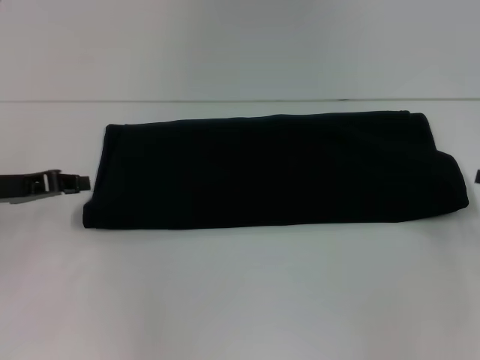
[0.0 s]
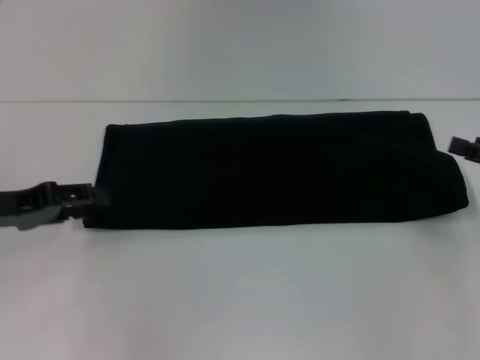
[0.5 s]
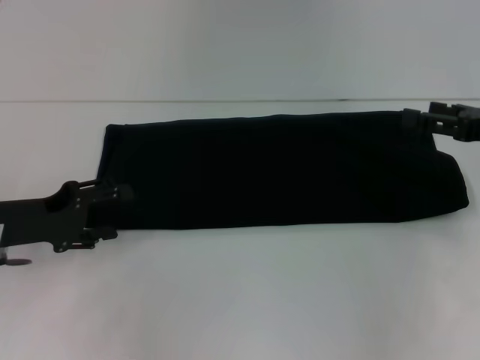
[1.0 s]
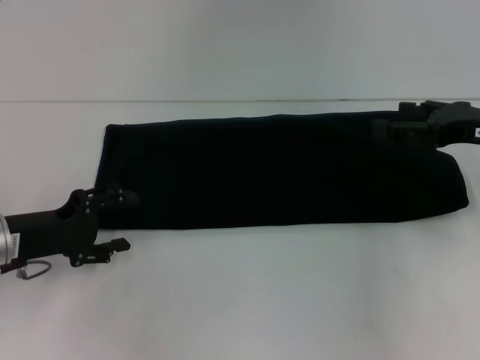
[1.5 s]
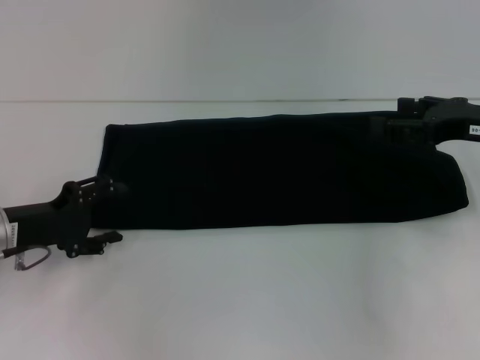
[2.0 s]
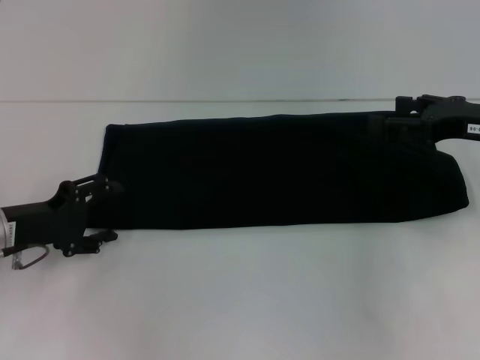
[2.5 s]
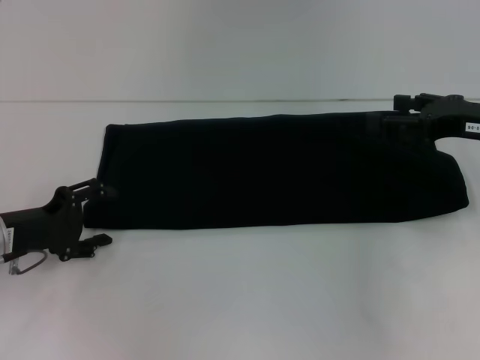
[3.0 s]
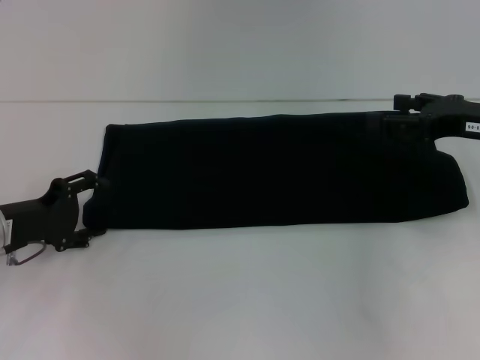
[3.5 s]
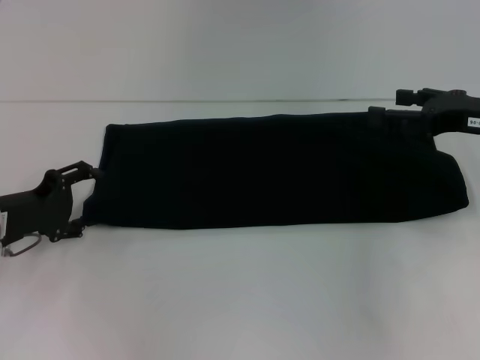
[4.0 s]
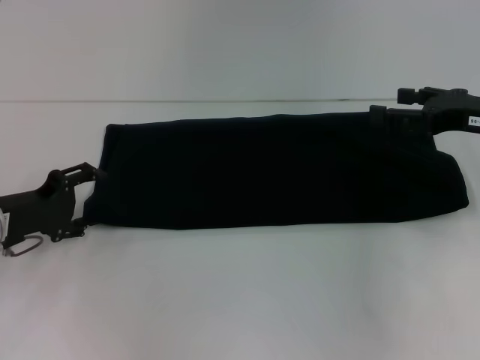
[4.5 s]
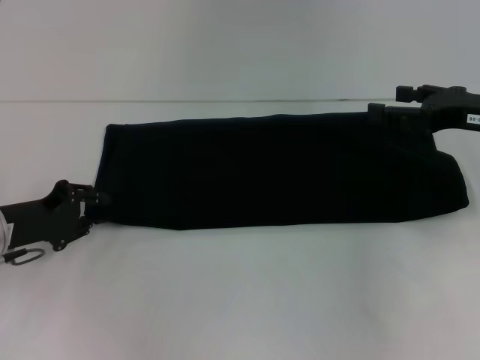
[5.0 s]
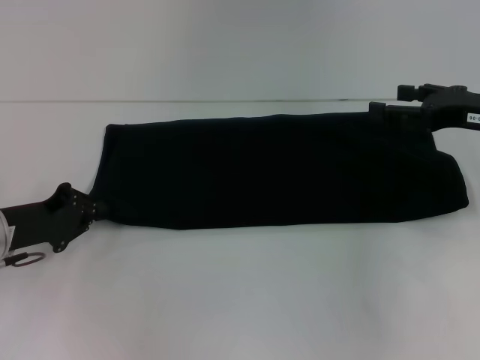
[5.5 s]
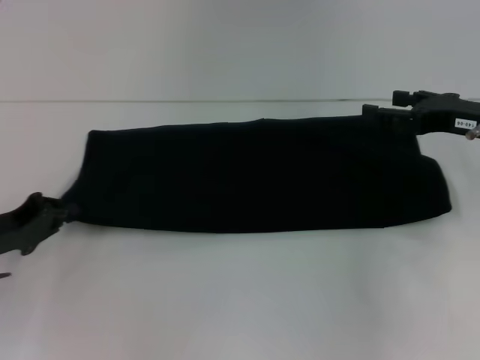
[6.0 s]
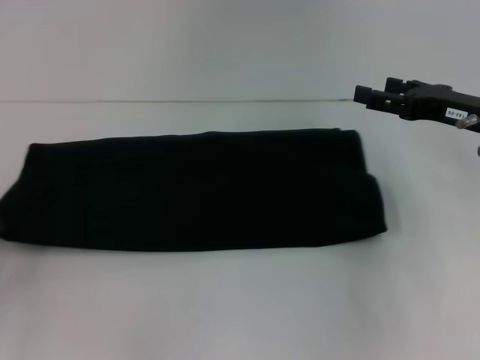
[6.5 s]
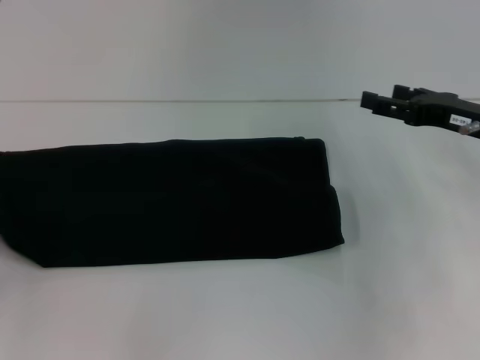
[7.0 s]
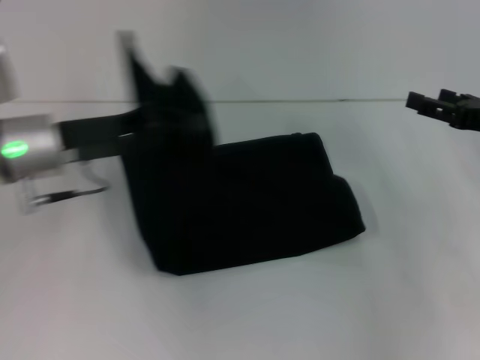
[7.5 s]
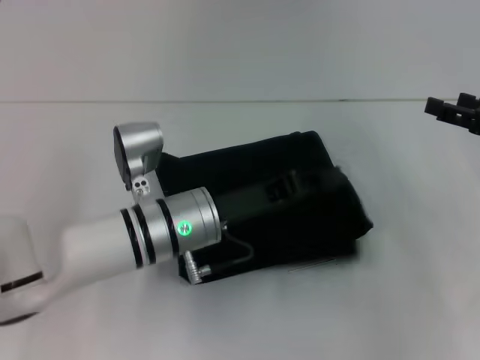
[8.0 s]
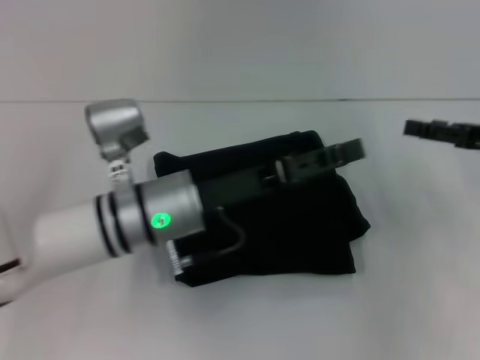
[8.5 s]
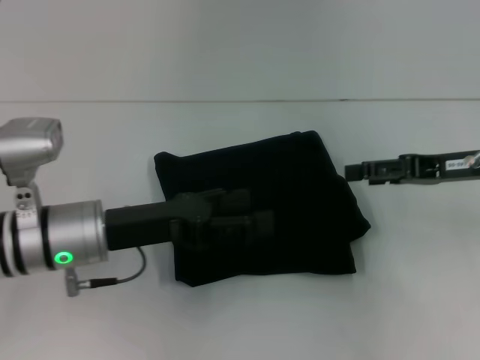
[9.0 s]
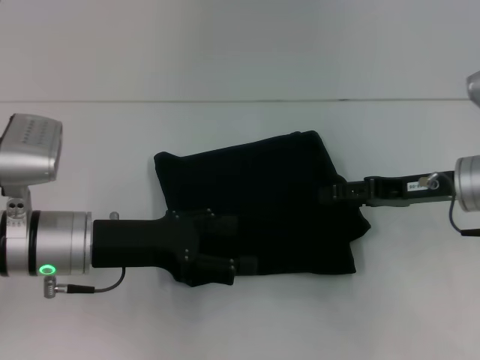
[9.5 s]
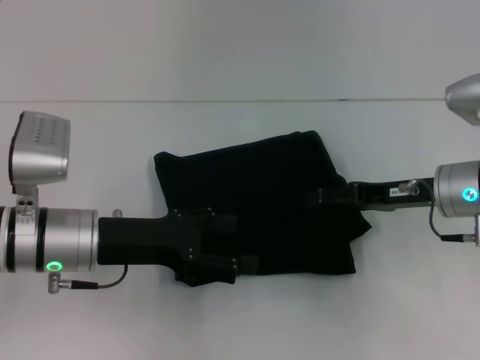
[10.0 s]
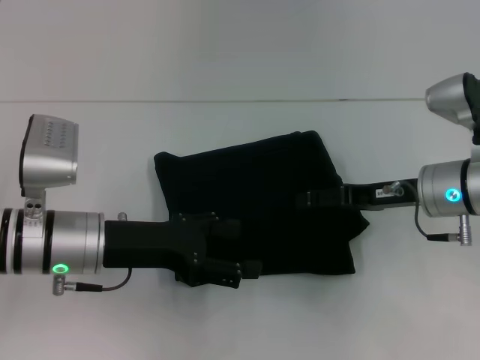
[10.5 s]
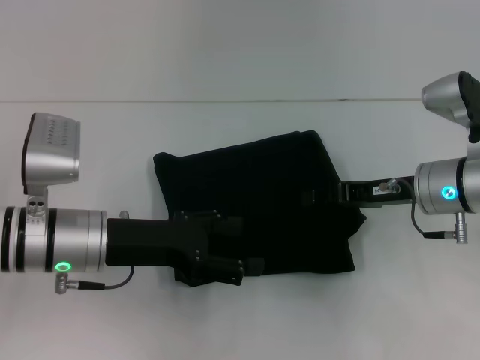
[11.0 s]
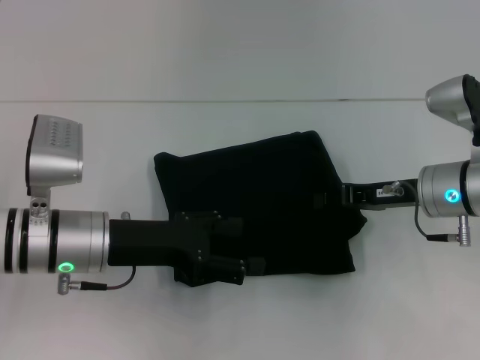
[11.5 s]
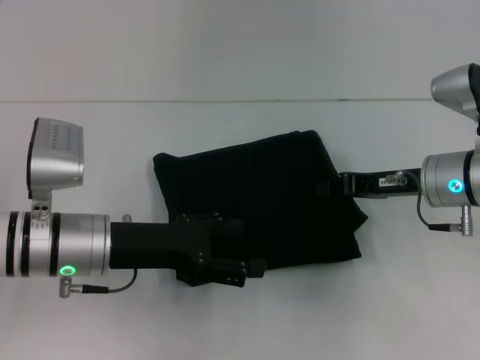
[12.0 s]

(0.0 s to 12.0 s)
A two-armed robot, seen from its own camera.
Step, 0.0 s - 8.0 s: Fold the clothes with your left hand.
0.0 s - 2.0 s: The left gripper shifts by some 5 cm, and opens its fingers; the right gripper travels to the left and forward by approximately 10 cm, and opens.
2.0 s - 4.0 s: There are only small adjustments of the grippers.
4.0 s - 6.0 s: The left gripper closes up.
6.0 s - 8.0 s: The left gripper is displaced to the right by roughly 25 cm. The right gripper travels to the right by about 5 cm.
8.0 s - 10.0 s: The grippers both shift to the left by about 10 cm. The left gripper opens up.
10.0 s - 12.0 s: The right gripper closes up.

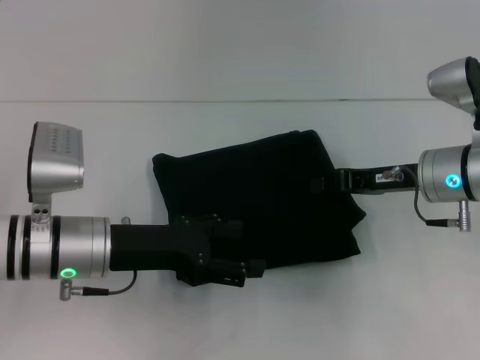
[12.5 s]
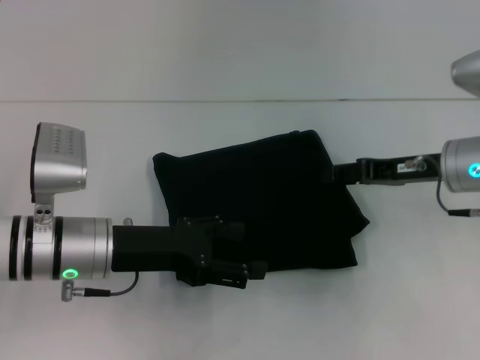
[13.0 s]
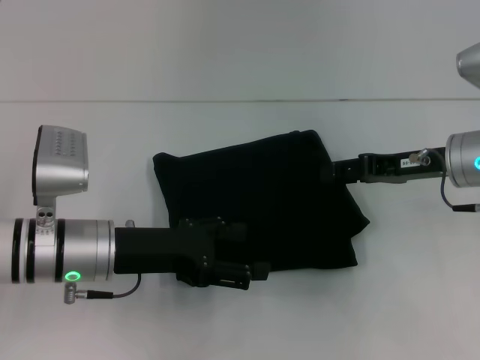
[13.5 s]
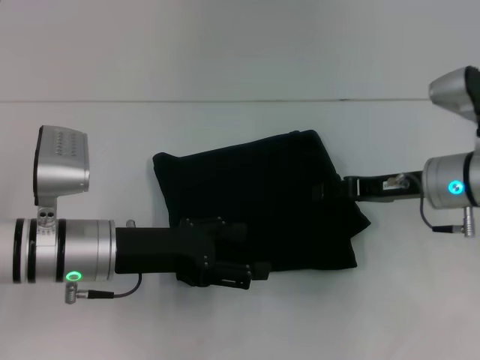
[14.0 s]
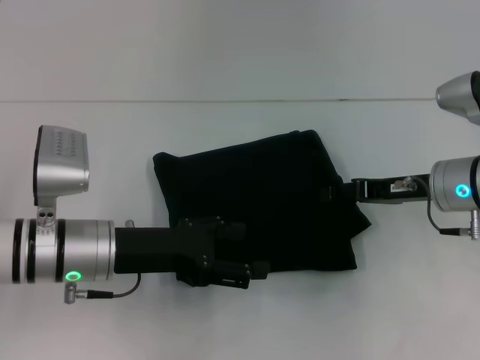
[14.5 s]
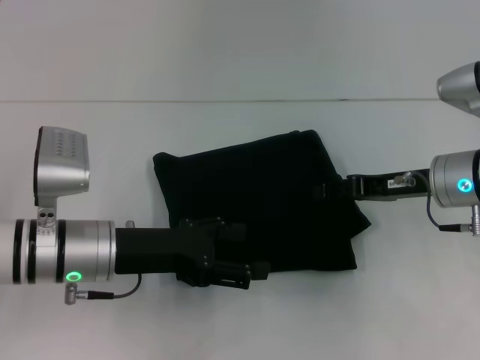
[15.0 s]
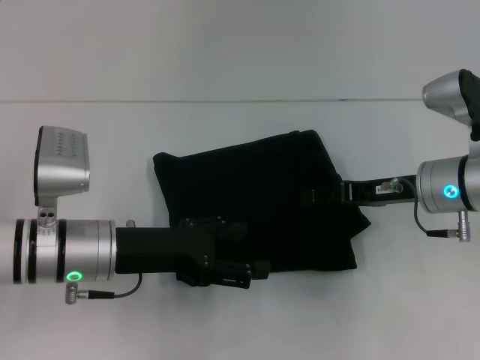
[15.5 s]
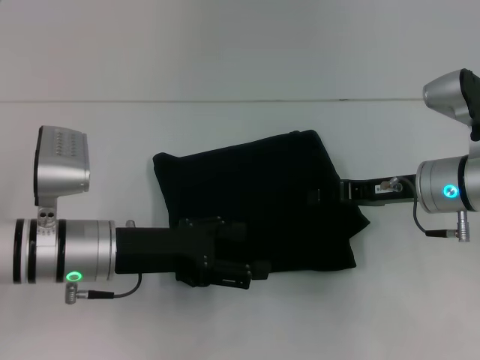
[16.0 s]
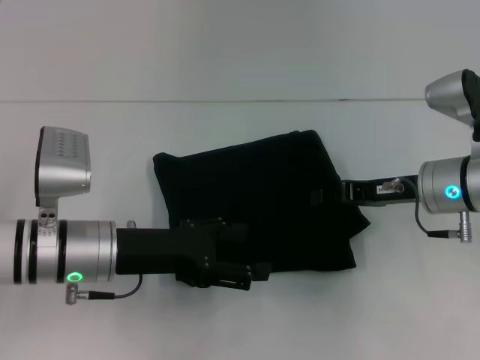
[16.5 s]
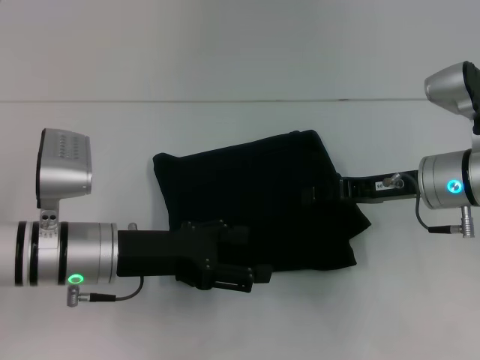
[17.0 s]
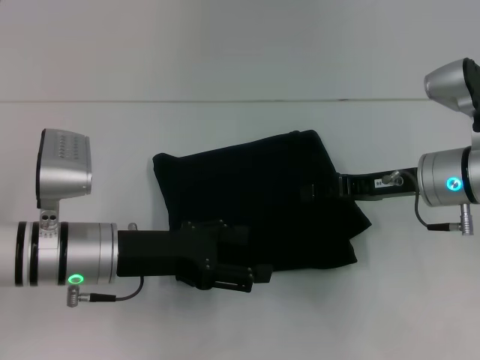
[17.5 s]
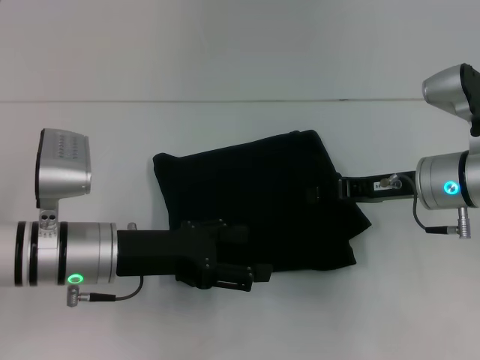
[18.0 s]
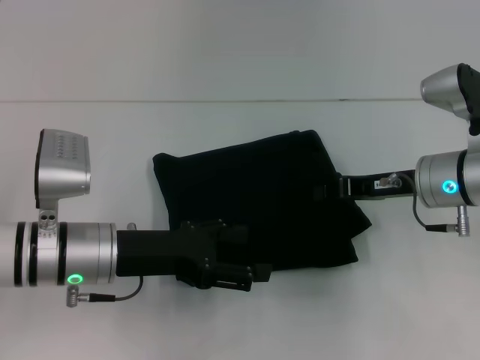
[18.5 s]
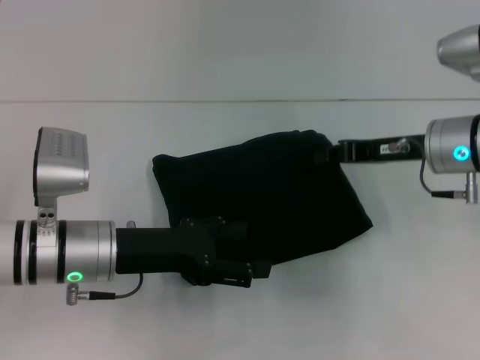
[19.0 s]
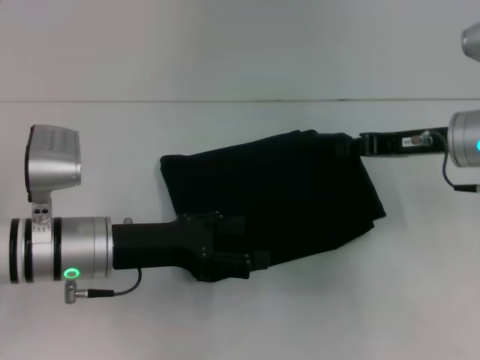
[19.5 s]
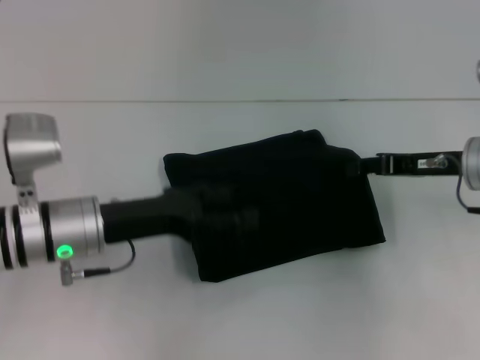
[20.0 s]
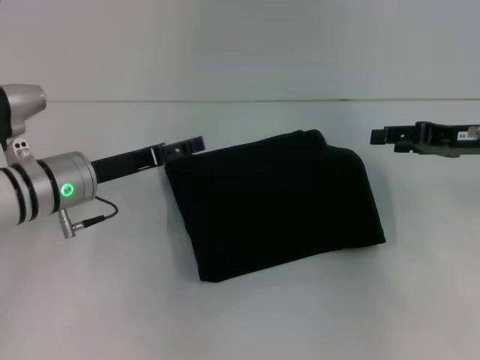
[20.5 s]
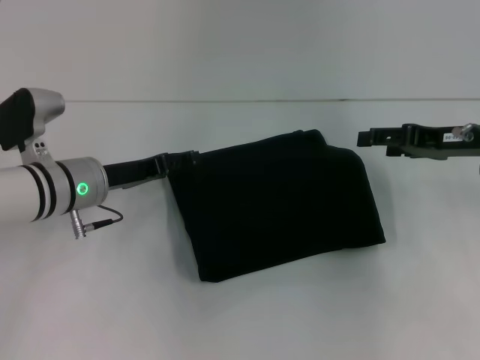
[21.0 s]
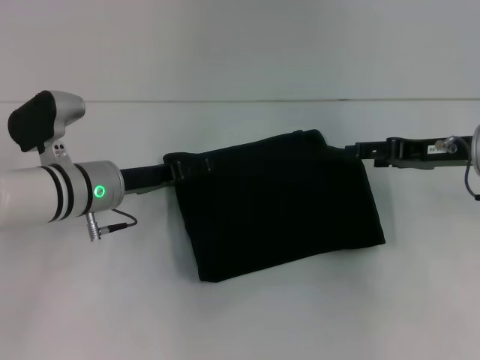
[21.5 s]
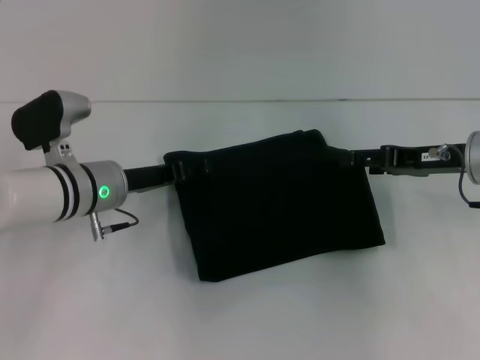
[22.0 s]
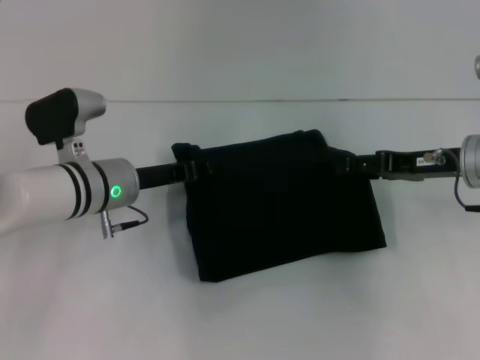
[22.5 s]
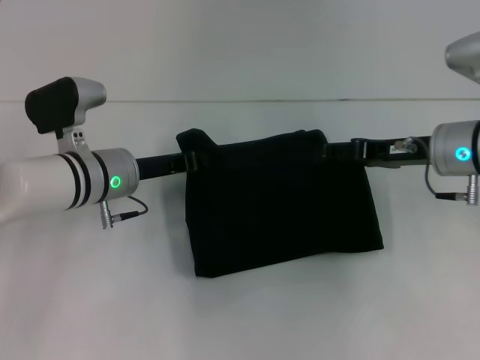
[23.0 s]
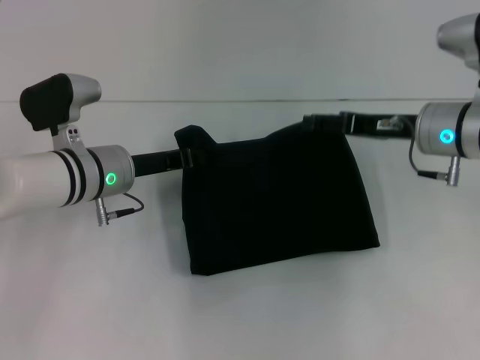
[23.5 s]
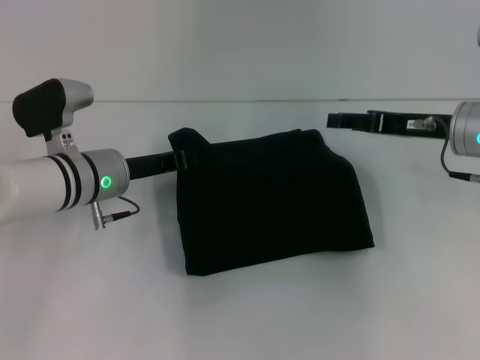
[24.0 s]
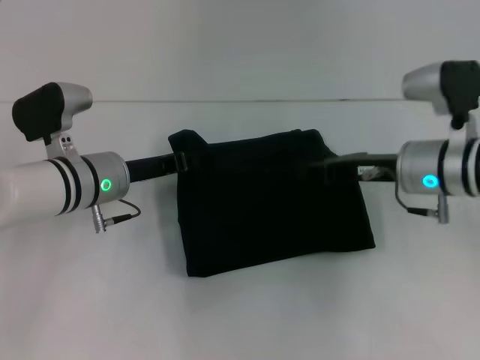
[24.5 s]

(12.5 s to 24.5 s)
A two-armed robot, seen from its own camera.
12.5 s - 14.5 s: The right gripper opens its fingers.
14.5 s - 16.5 s: The right gripper closes its fingers.
16.5 s - 18.5 s: Both grippers stay put.
18.5 s - 20.5 s: The right gripper moves to the right, roughly 10 cm, and opens. The left gripper is displaced forward by some 5 cm.
20.5 s - 22.5 s: The left gripper closes its fingers.
22.5 s - 24.5 s: The right gripper travels to the left by approximately 5 cm, and closes up. Meanwhile the left gripper closes.

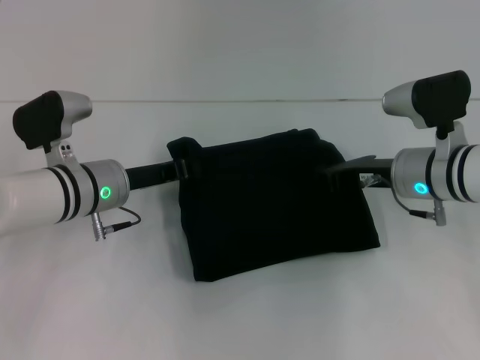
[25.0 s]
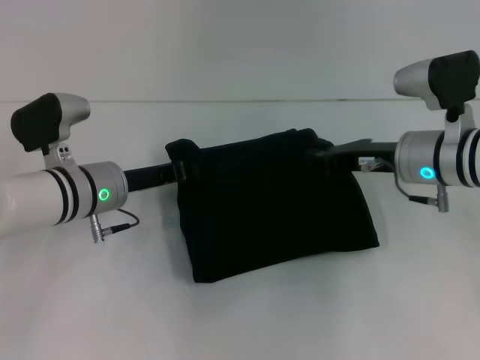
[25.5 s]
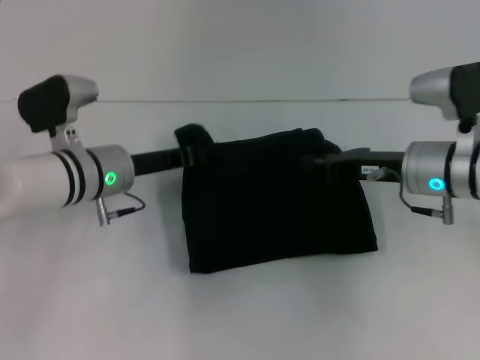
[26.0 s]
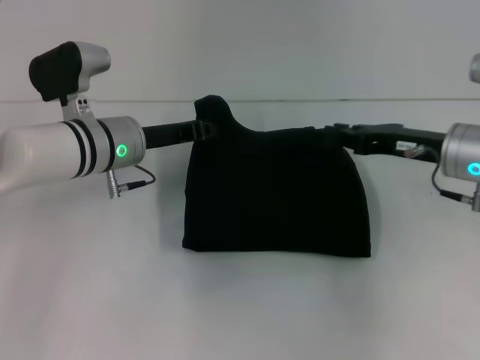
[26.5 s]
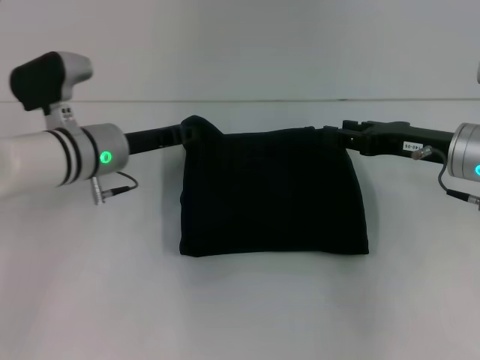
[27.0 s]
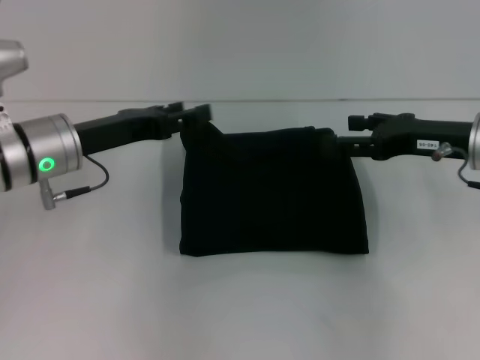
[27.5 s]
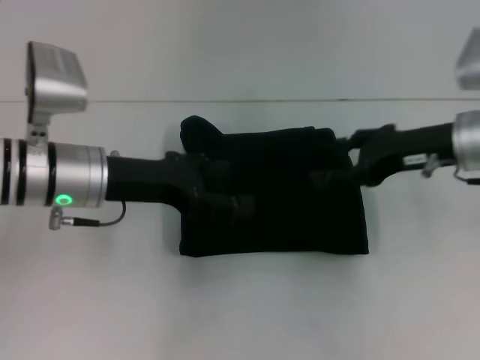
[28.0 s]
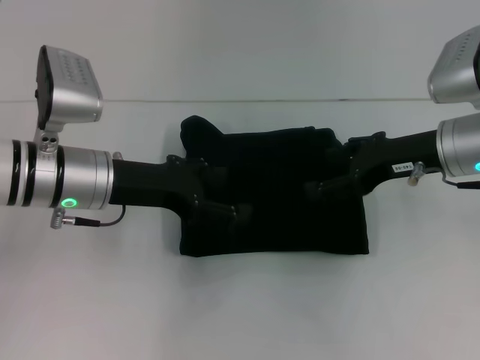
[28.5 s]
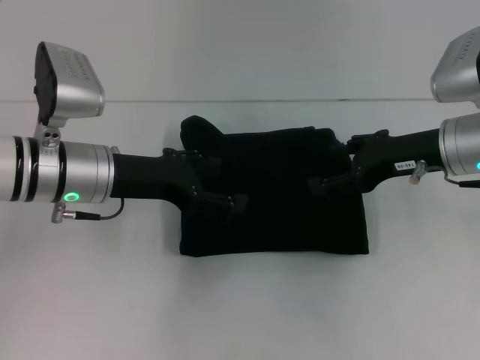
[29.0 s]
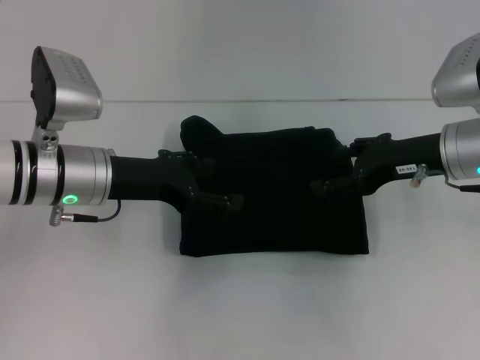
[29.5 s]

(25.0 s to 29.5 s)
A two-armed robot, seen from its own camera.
25.0 s - 27.0 s: The right gripper changes place by approximately 5 cm, and opens its fingers.
27.0 s - 29.5 s: The left gripper travels backward by about 5 cm, and opens. The right gripper opens up.
